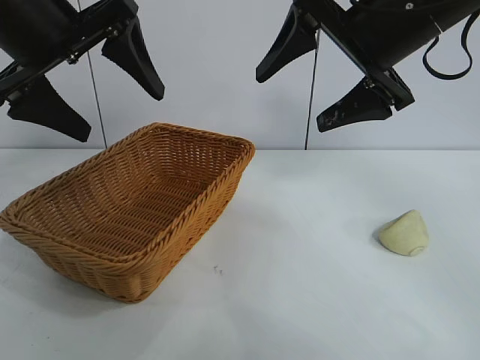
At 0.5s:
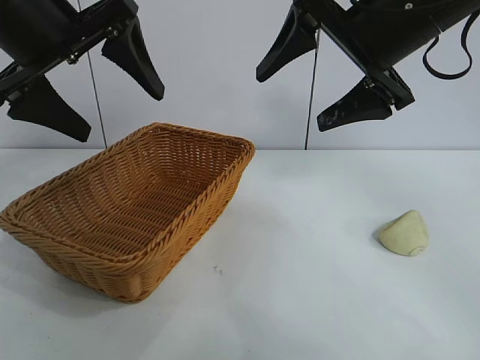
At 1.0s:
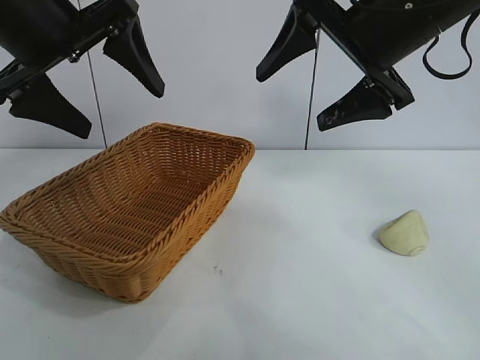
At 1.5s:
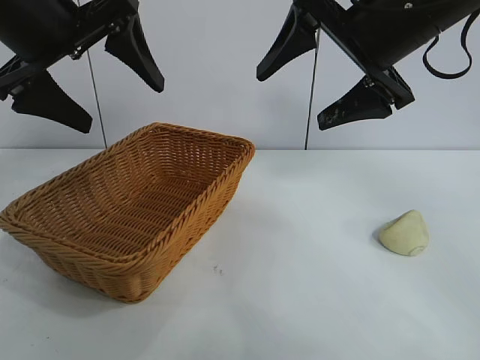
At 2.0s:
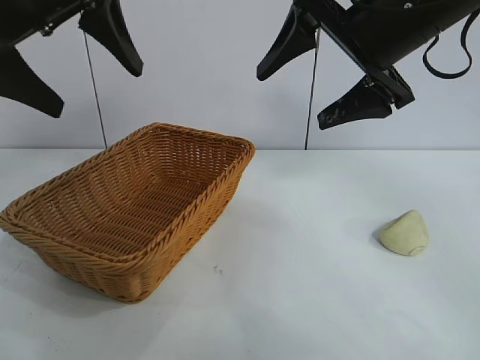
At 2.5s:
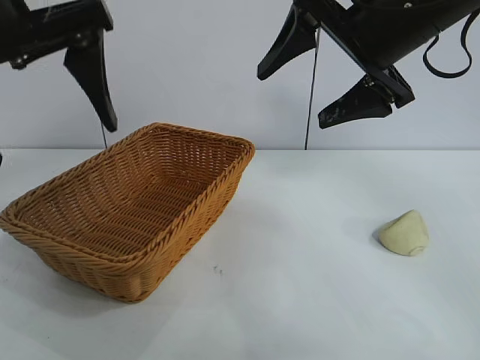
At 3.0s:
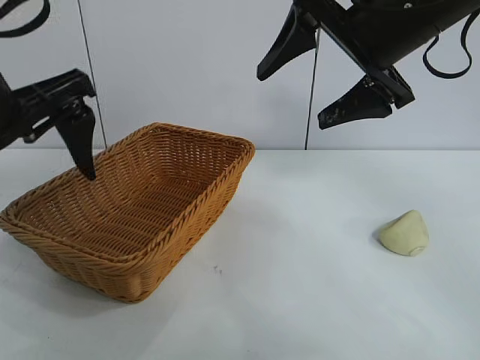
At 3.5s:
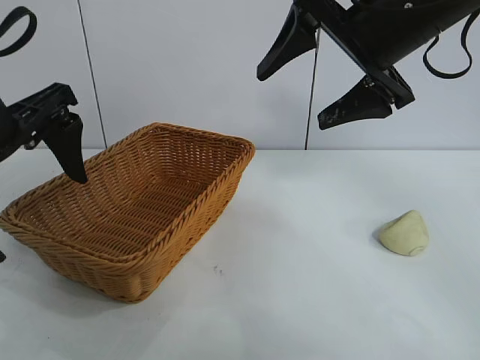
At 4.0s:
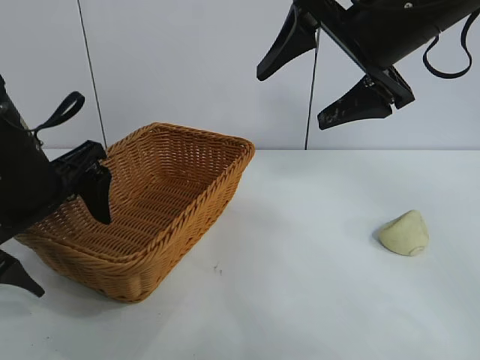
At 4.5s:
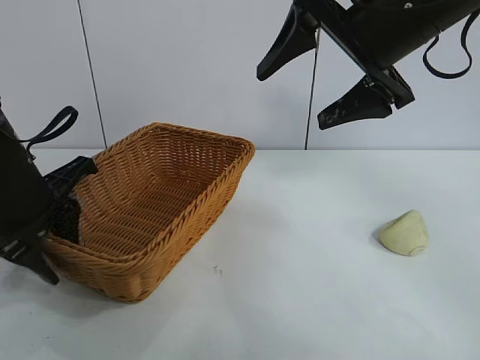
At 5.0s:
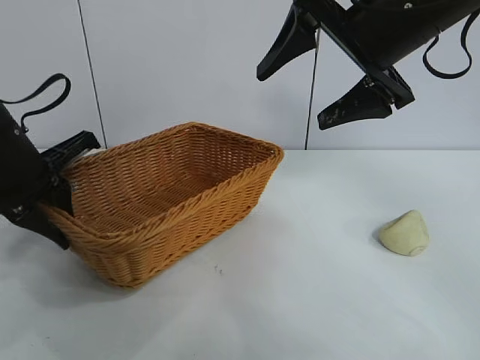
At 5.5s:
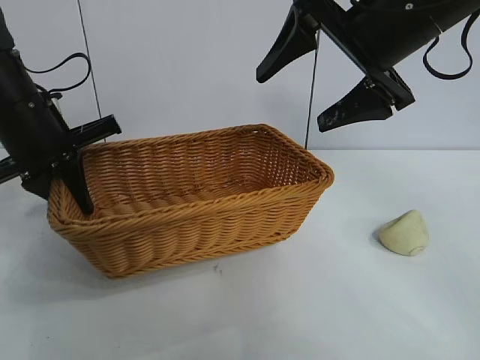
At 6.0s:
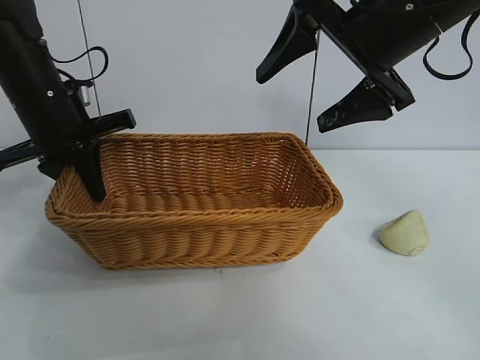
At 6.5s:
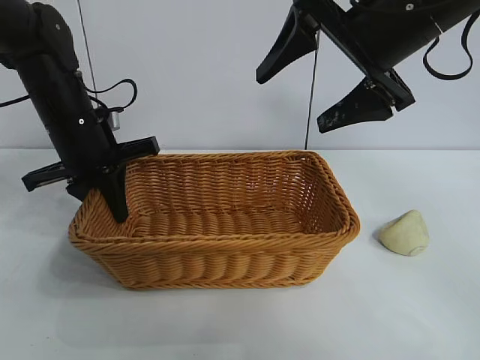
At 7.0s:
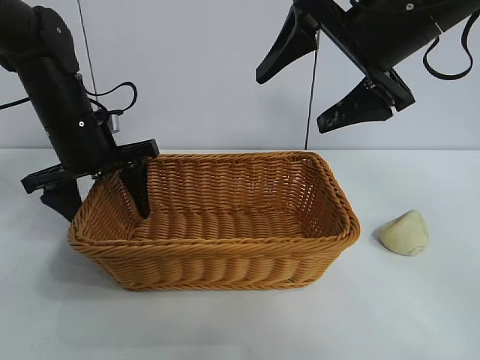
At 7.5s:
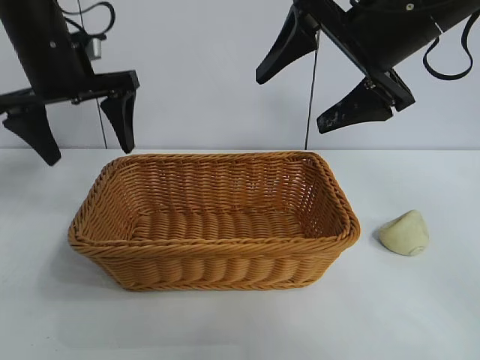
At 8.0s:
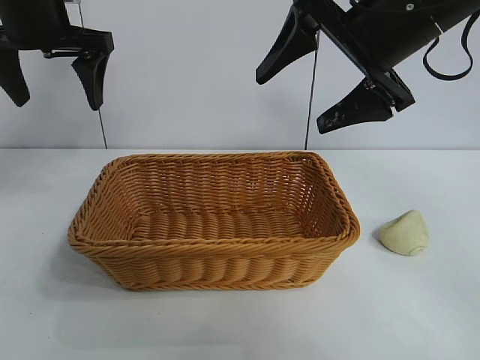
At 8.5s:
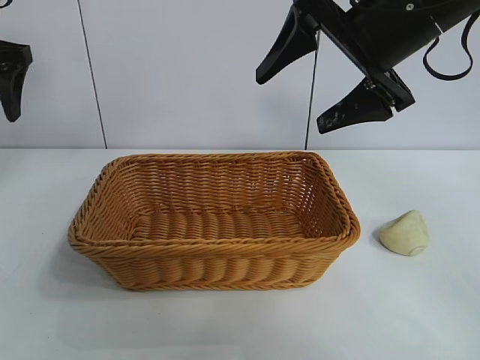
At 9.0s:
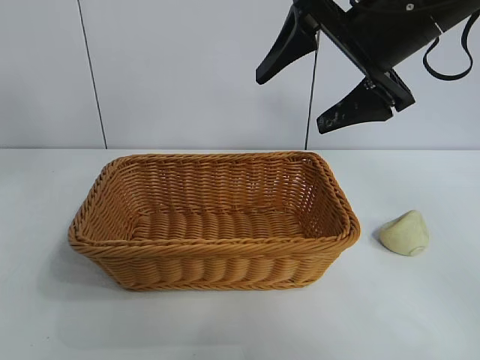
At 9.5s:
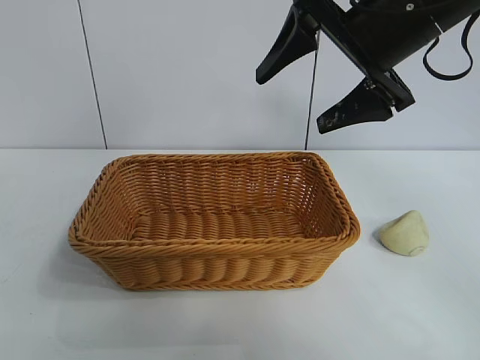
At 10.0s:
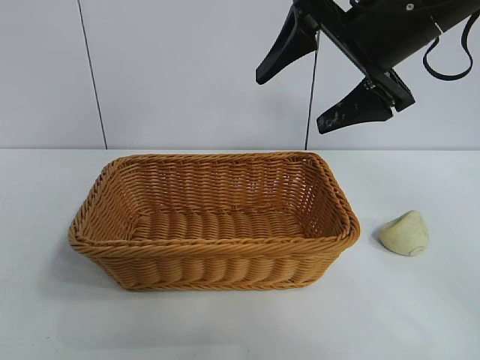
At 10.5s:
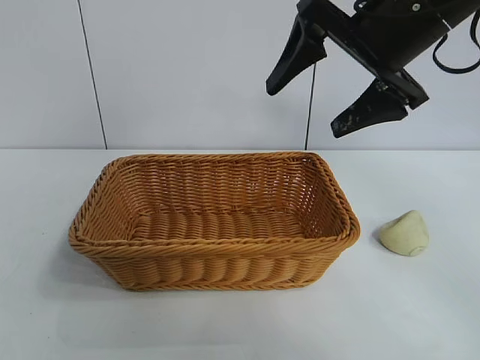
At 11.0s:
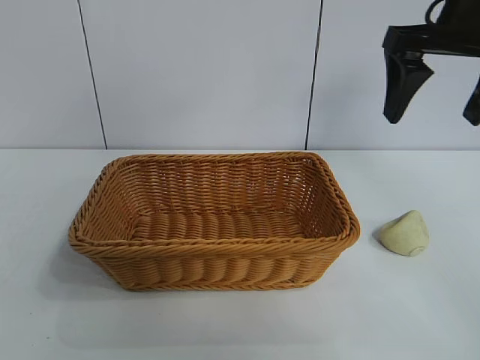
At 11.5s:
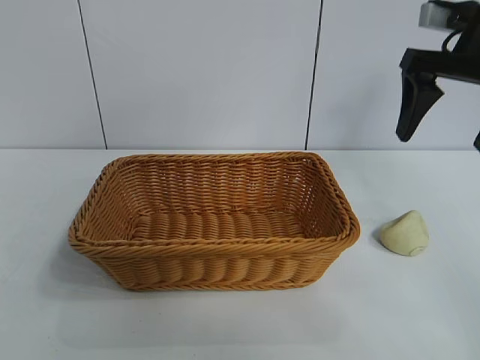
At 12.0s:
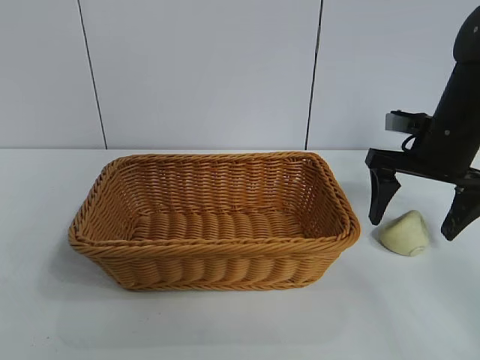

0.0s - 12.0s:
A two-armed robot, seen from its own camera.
Task of the whole recording: pick up the egg yolk pastry and put it into the basket.
Step, 0.0s - 4.5s: Grasp the basket with left gripper.
Step, 5.0s - 7.0s: Place the basket in the center of view with left gripper.

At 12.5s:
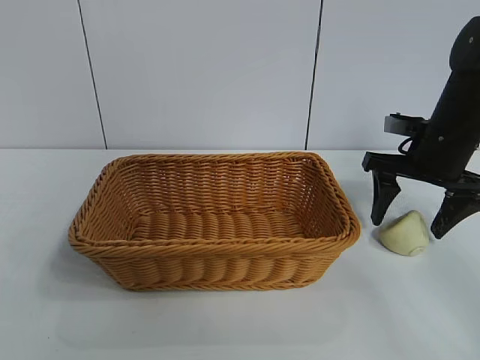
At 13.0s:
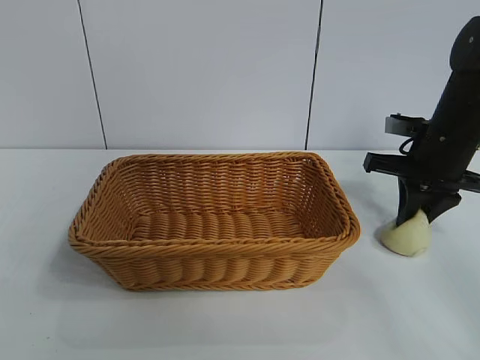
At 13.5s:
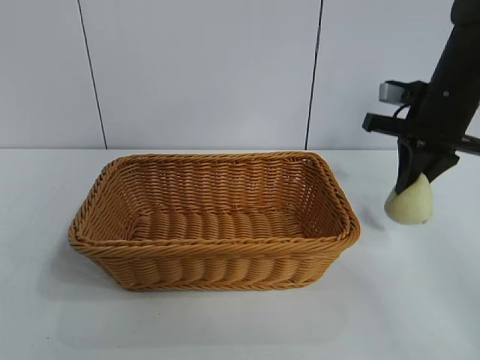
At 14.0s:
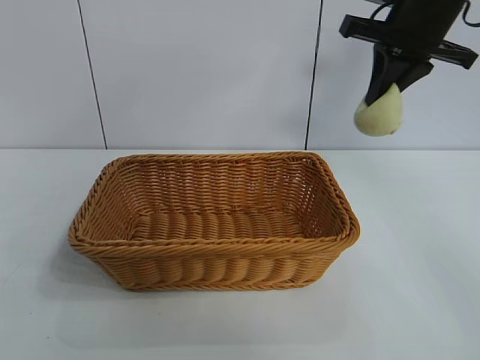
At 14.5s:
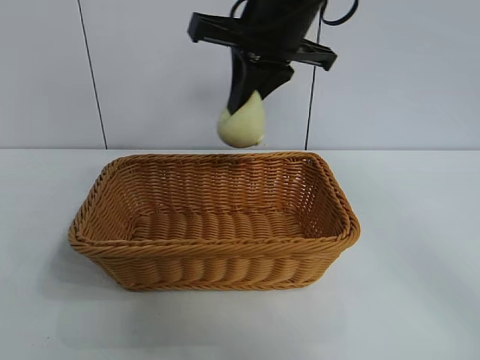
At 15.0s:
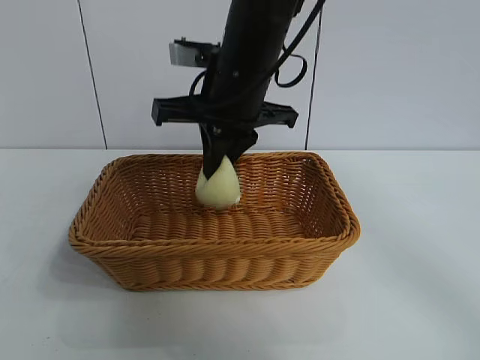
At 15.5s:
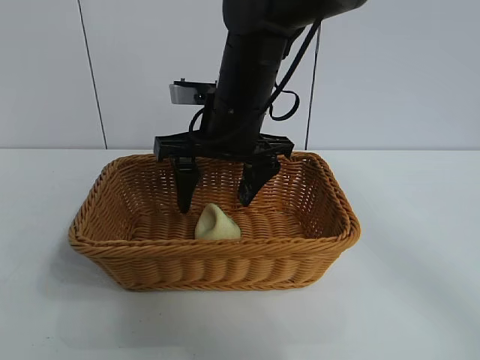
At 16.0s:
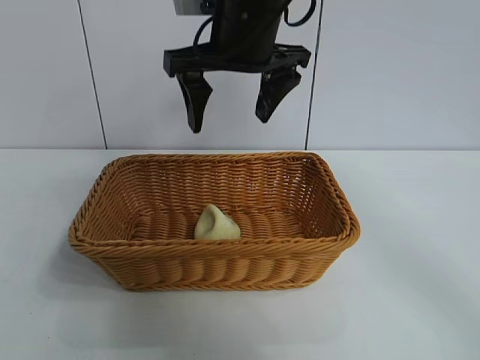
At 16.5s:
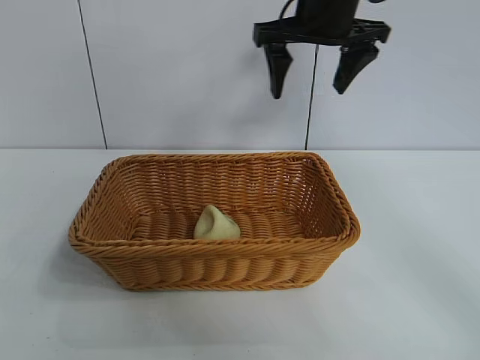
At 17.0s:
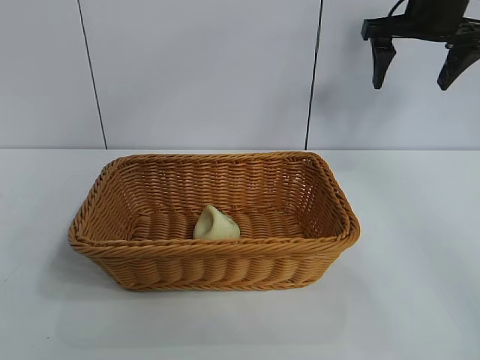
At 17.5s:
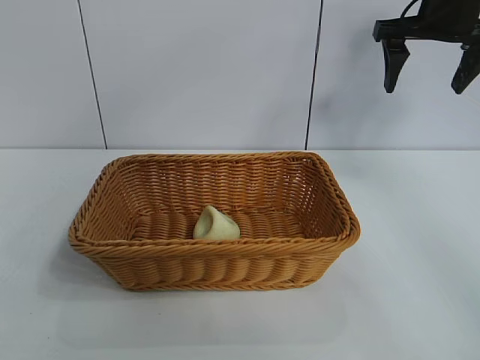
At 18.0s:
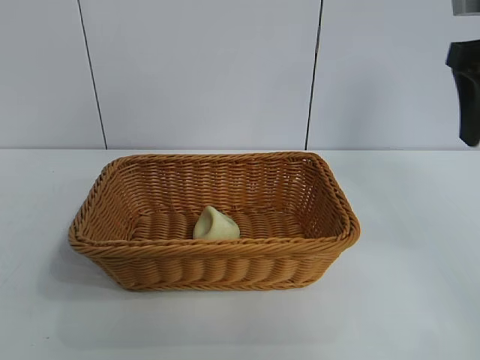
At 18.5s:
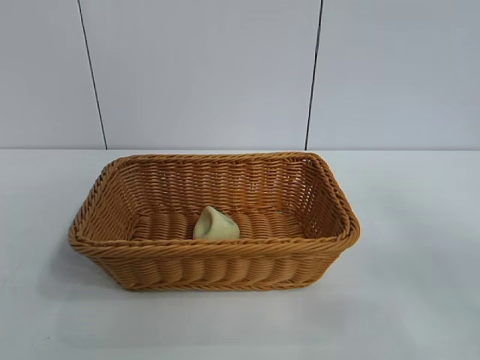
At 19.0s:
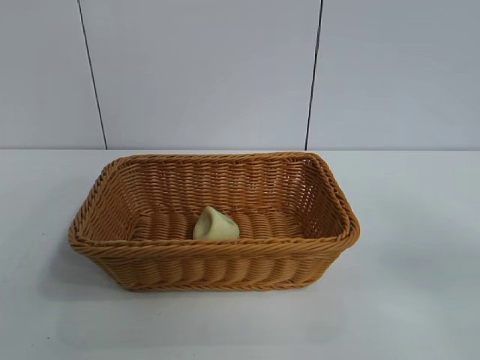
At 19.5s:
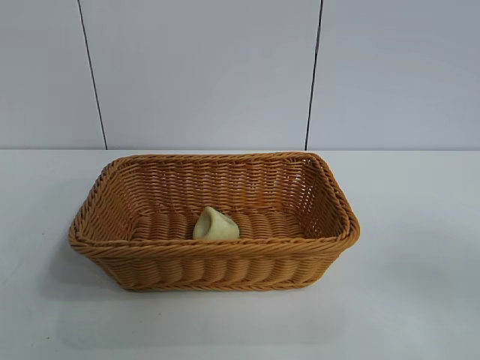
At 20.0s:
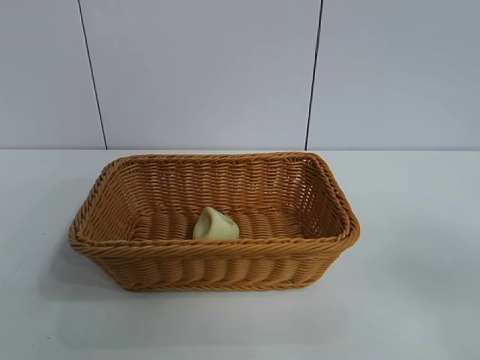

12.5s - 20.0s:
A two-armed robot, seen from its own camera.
Task of the whole recording: pick up the egg yolk pastry and put it into the basket.
Step, 13.5s - 15.5s: Place the egg yolk pastry in the basket with right gripper.

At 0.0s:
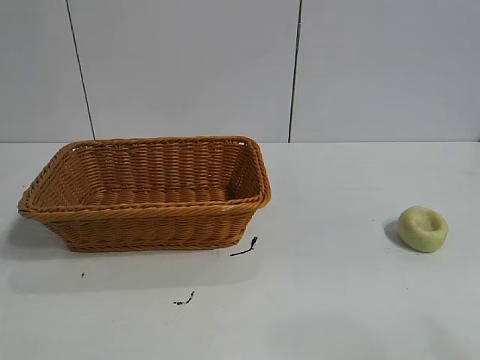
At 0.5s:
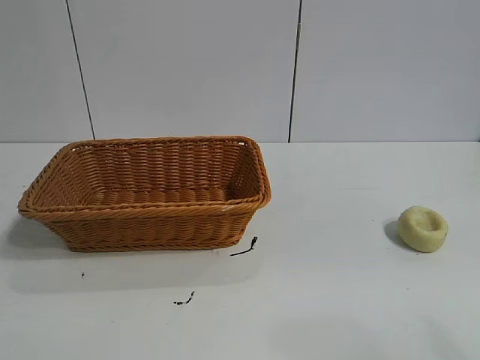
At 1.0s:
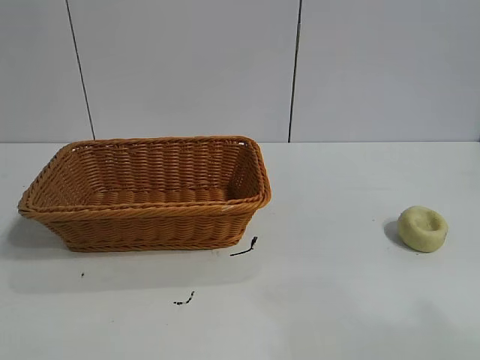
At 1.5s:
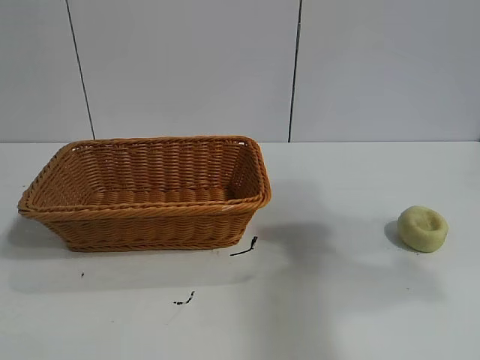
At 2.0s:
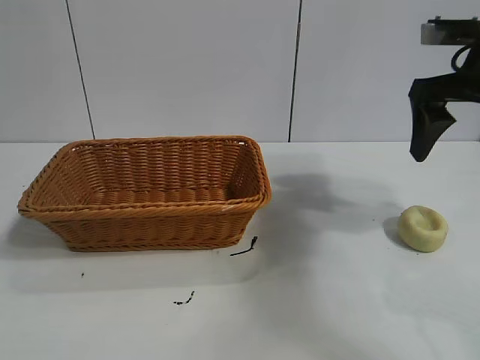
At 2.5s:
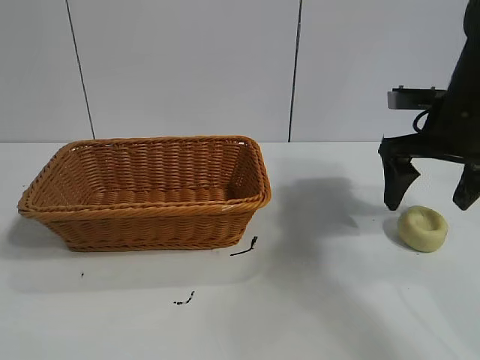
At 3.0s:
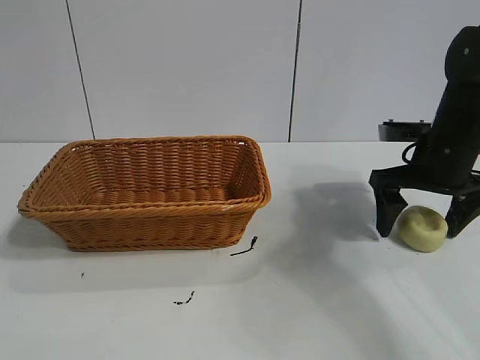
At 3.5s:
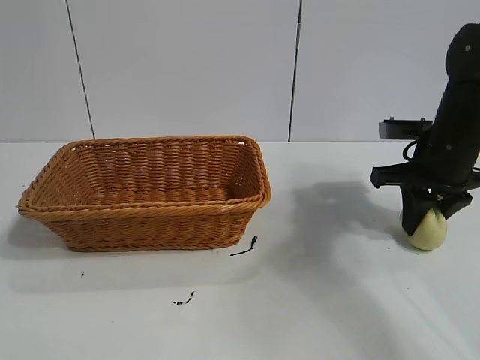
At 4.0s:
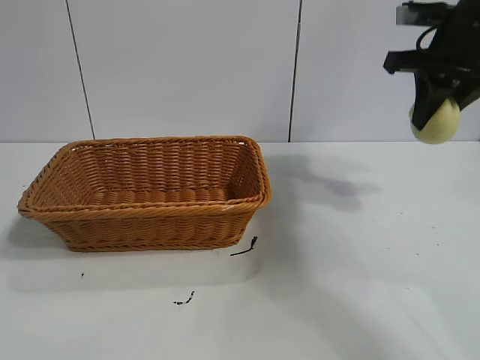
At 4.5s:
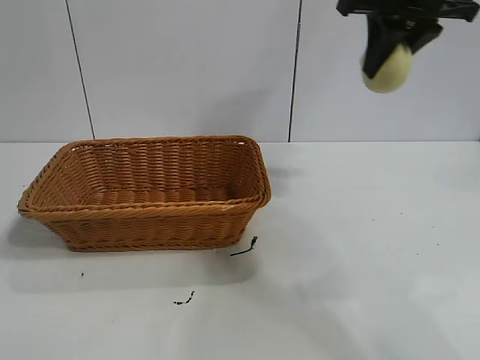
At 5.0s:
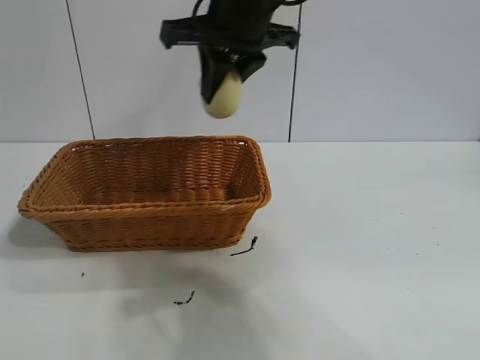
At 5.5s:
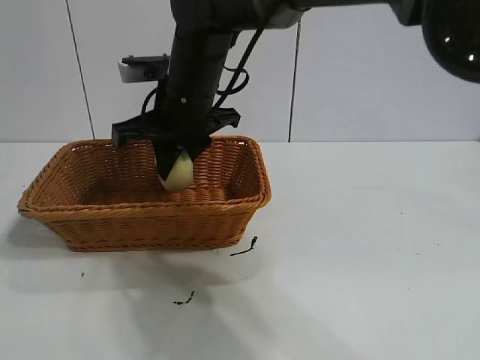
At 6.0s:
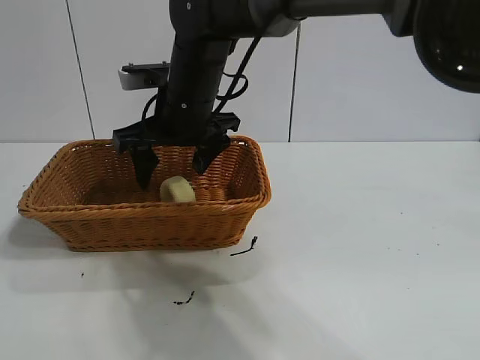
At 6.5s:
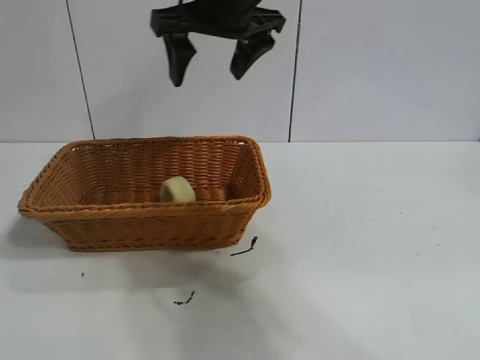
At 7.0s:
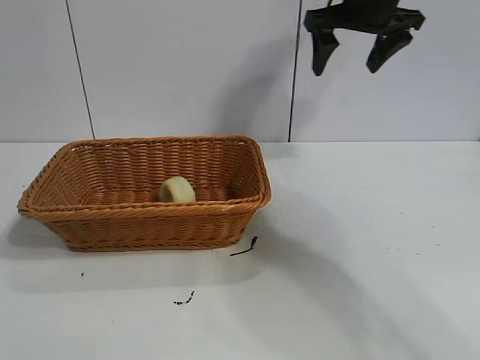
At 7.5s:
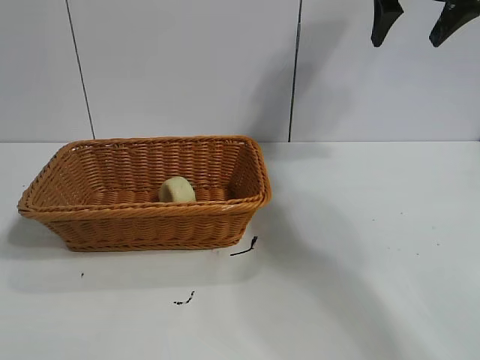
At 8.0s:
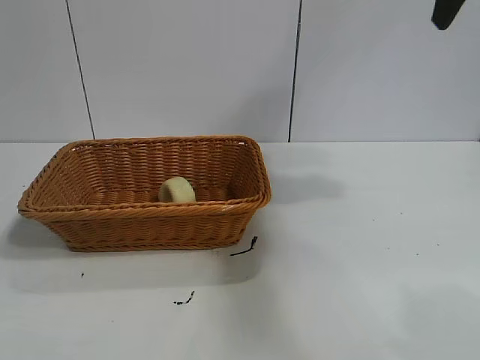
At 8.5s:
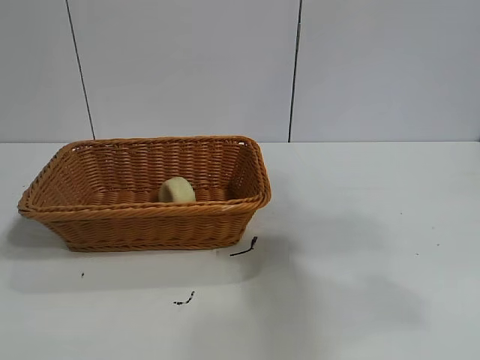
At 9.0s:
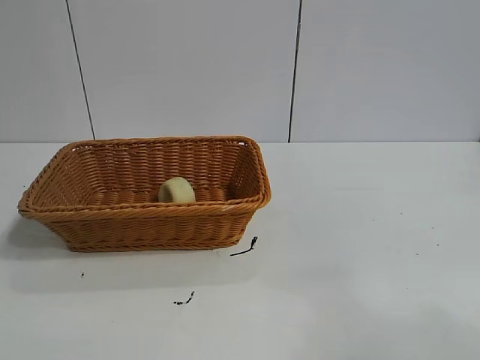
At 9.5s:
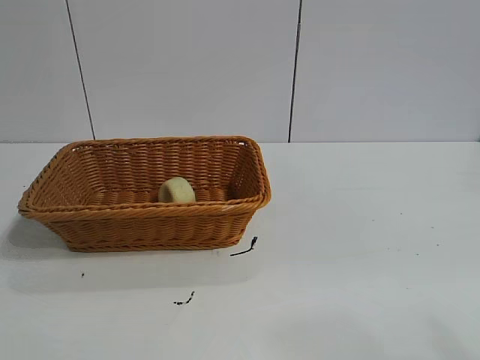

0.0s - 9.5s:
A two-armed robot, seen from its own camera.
Task of the whole recording: pick up the egg yolk pastry and put it into the basket.
Step, 1.0s - 3.5s: Grasp egg yolk pastry with right gripper.
Step, 4.0s - 5.5s: Place the egg yolk pastry in the basket with right gripper.
